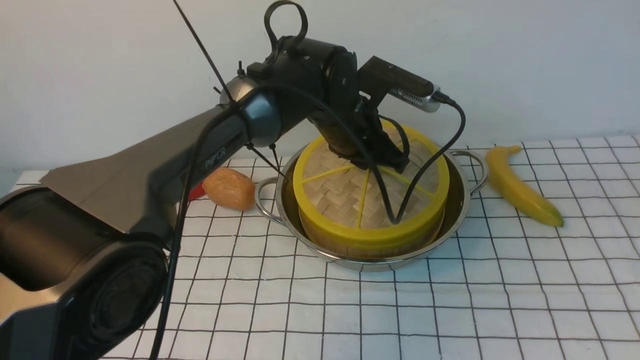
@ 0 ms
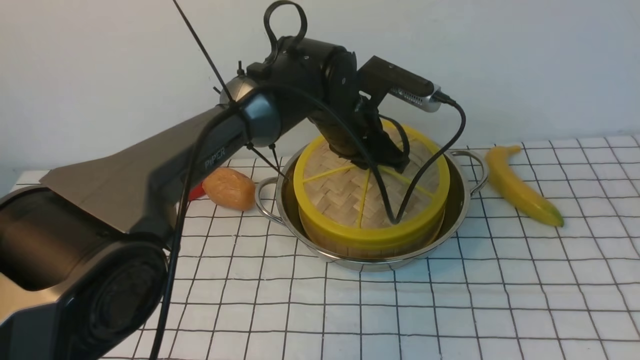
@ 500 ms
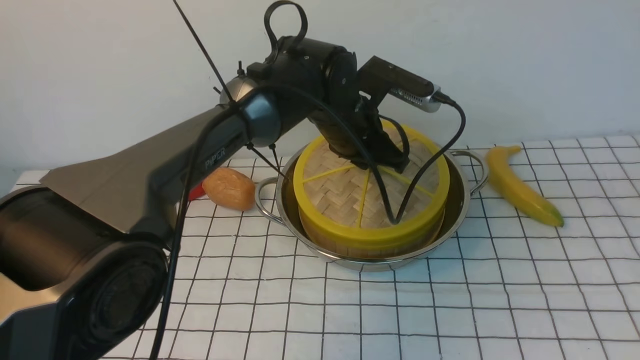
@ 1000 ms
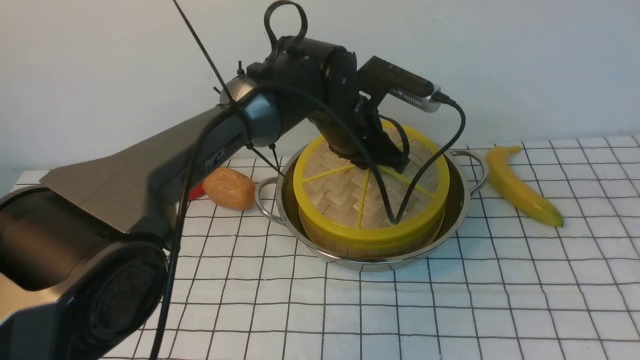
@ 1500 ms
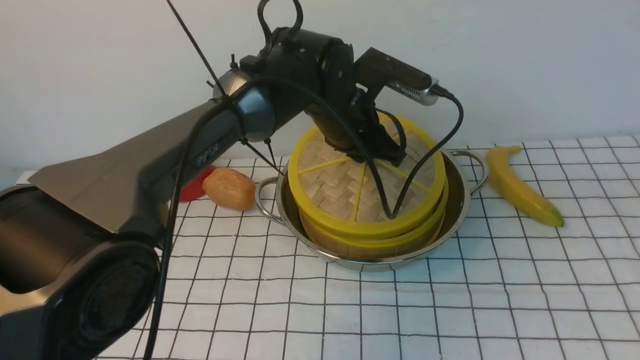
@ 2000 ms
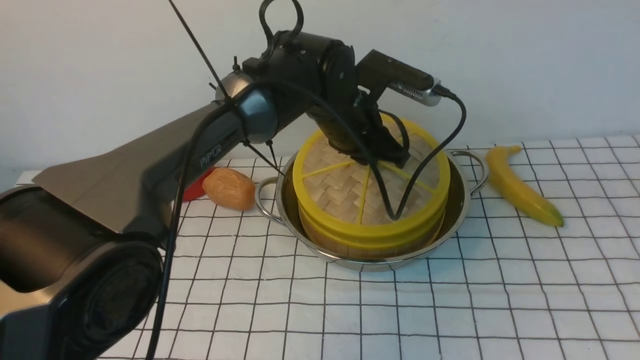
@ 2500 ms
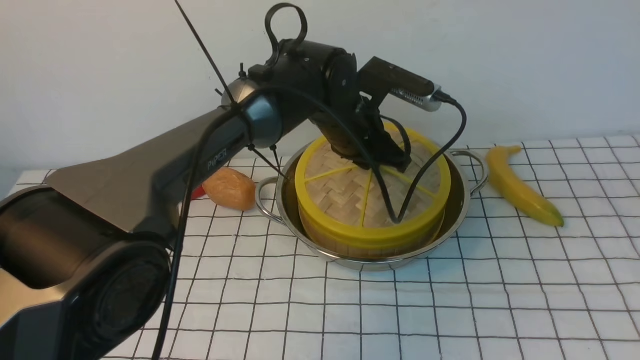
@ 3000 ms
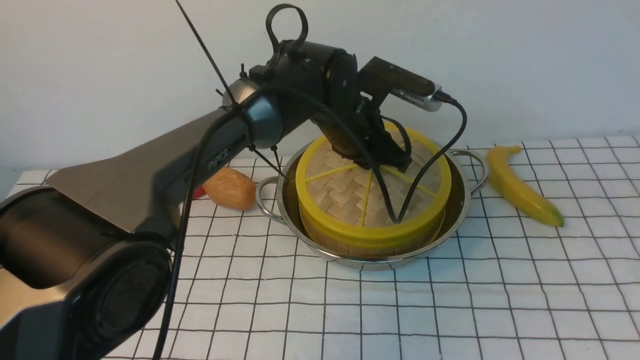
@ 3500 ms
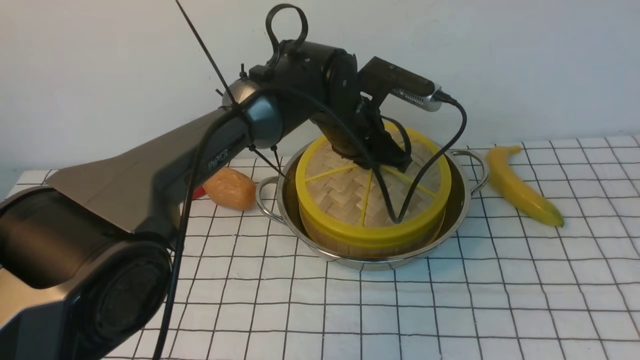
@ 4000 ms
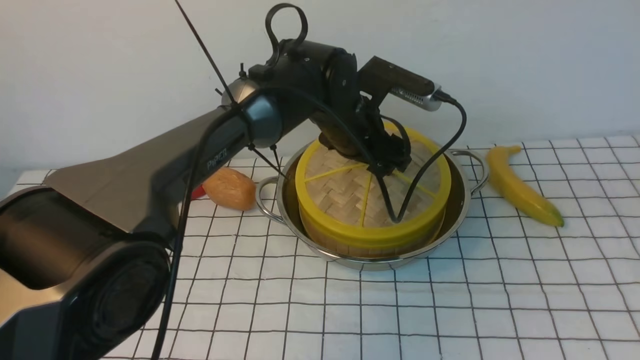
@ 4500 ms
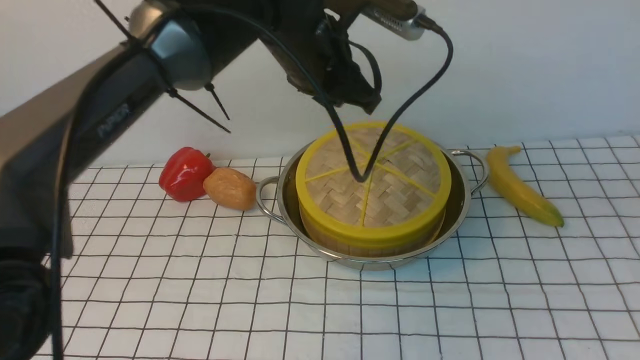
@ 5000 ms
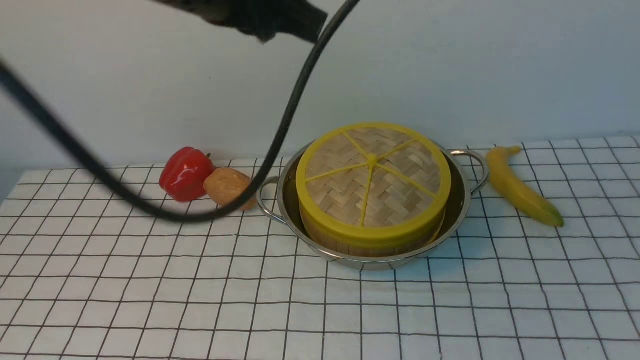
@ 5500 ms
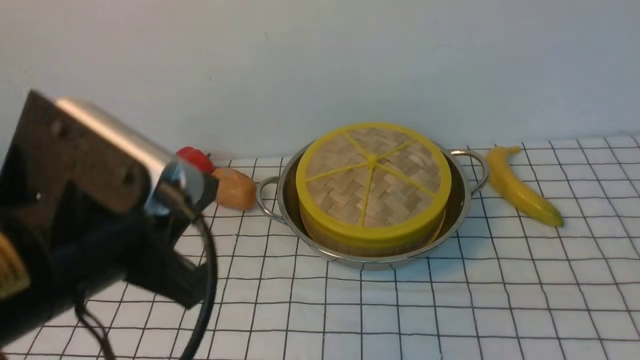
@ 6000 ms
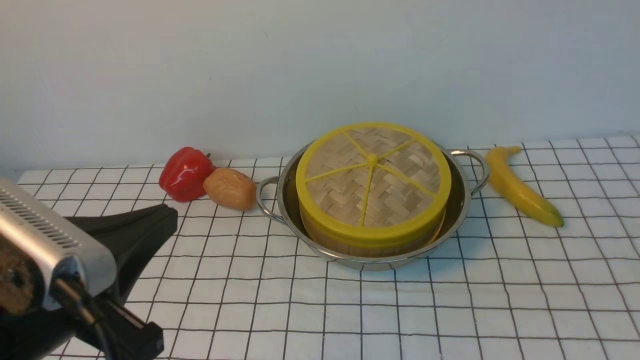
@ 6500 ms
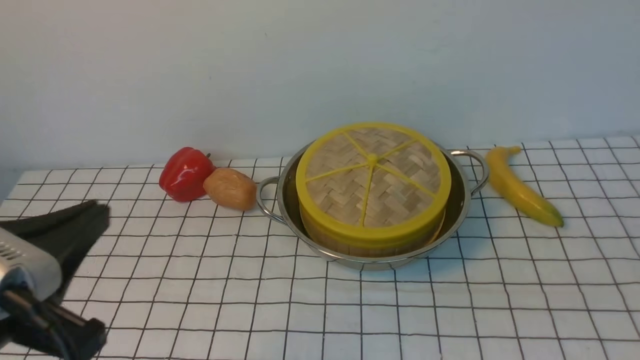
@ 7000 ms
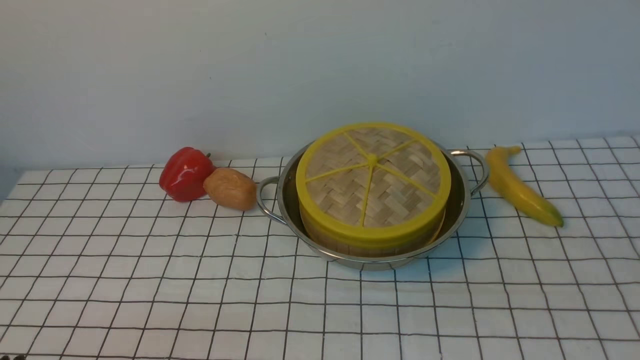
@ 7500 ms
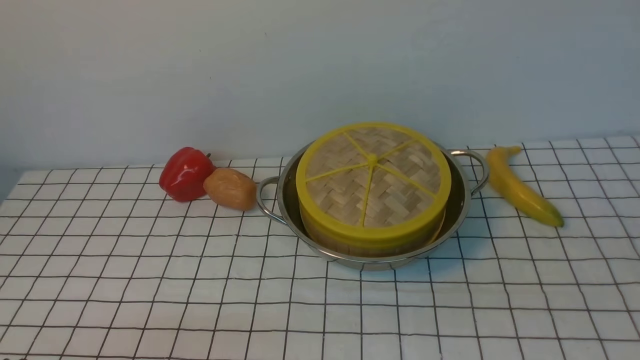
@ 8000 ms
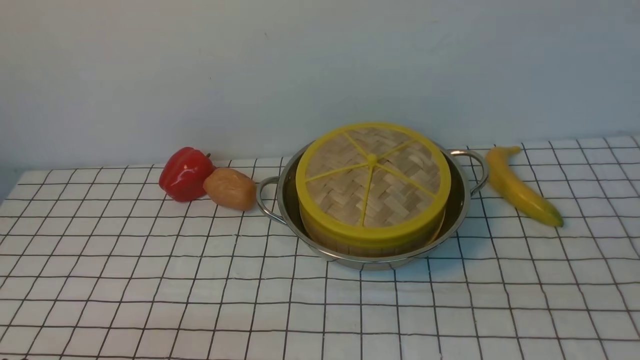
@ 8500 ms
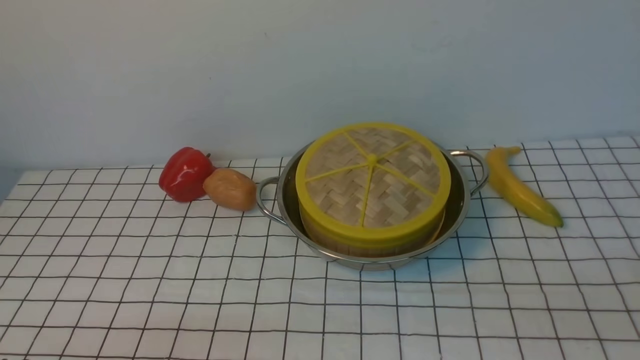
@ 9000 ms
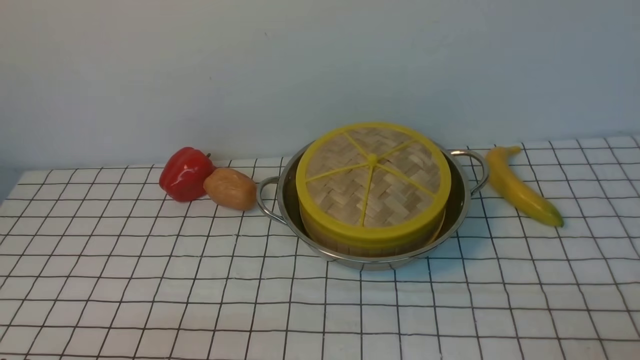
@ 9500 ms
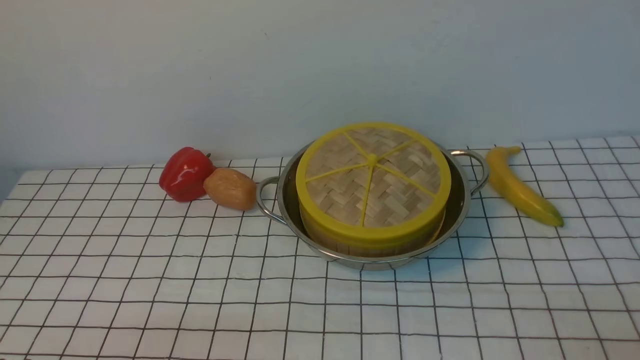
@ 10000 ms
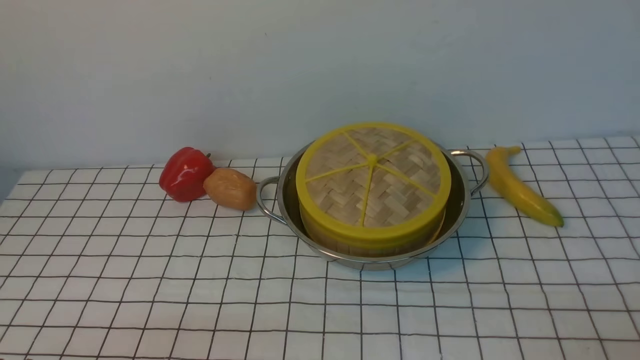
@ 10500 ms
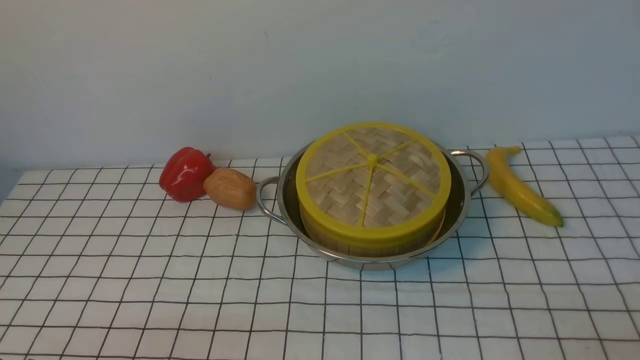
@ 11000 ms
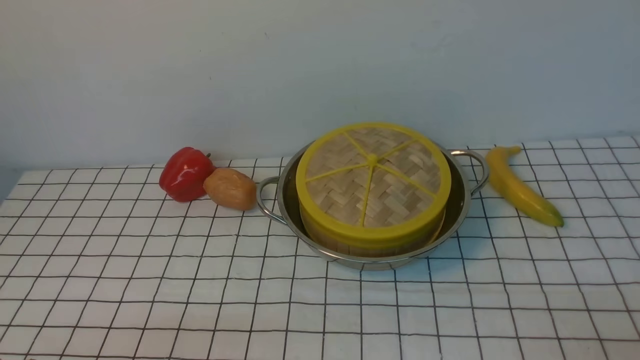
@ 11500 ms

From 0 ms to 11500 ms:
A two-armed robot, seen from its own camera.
Task of the whole recording: place the steamer in the pot on the white tablecloth, and put the lid on the steamer.
Step, from 0 ms to 4500 ms: use the left arm to place the steamer lid on the steamer.
From 0 ms to 4000 ms: The two grippers keep their place.
From 4000 ms to 6000 ms: The left gripper travels backward, to the left and upward by roughly 35 cm, and closes its fingers. Meanwhile the right gripper shifts some 10 cm downward and backward.
From 6000 ms to 7500 ms: The left gripper travels downward, backward and to the left by about 20 cm.
From 9500 ms to 11500 ms: Both grippers stay put.

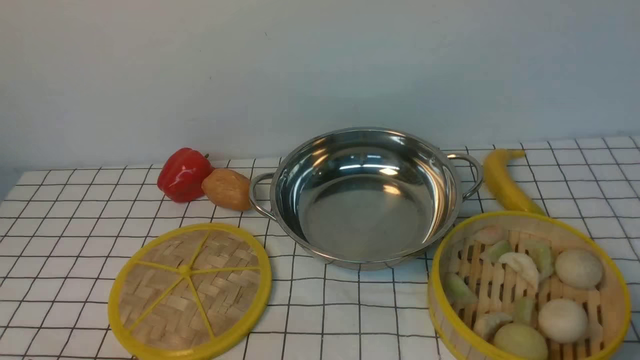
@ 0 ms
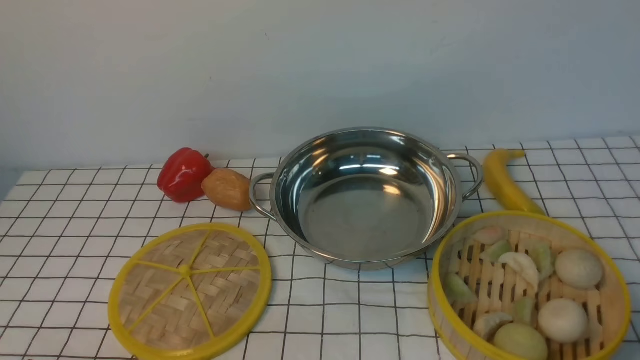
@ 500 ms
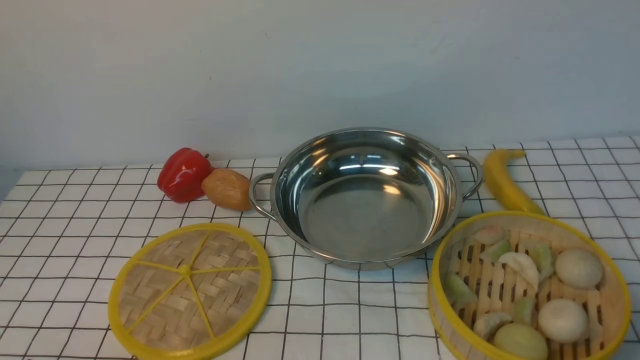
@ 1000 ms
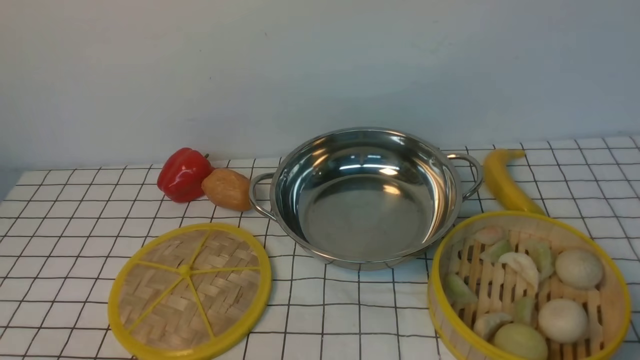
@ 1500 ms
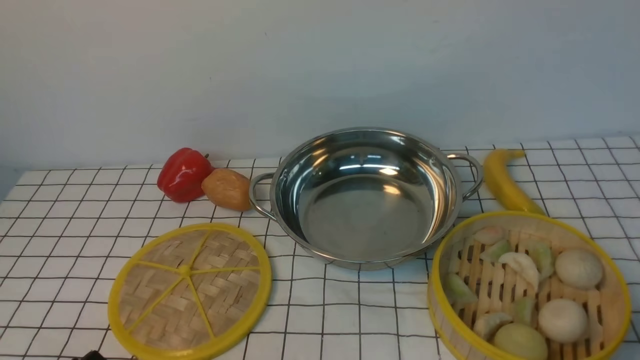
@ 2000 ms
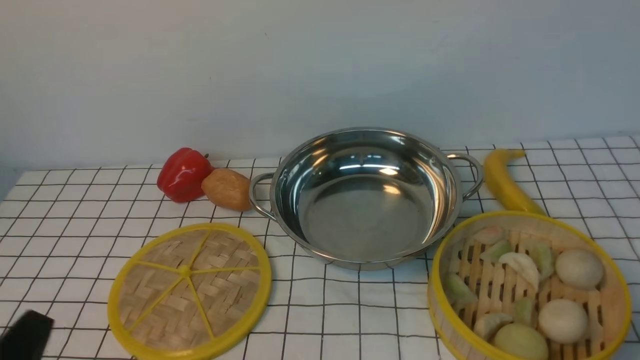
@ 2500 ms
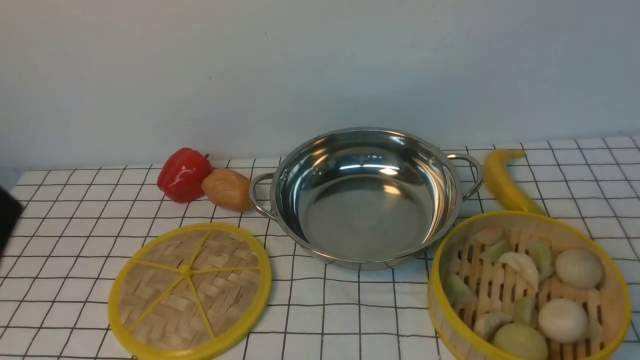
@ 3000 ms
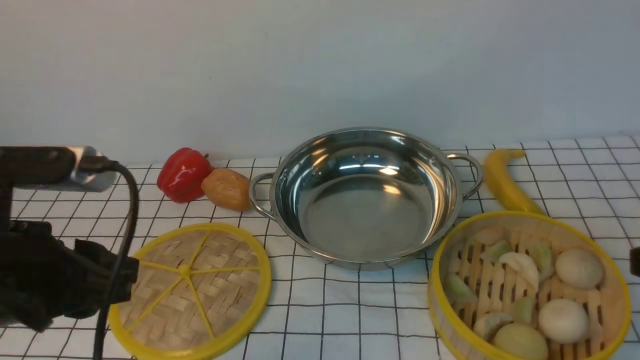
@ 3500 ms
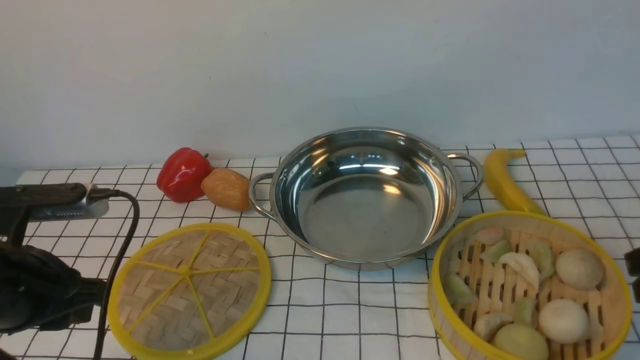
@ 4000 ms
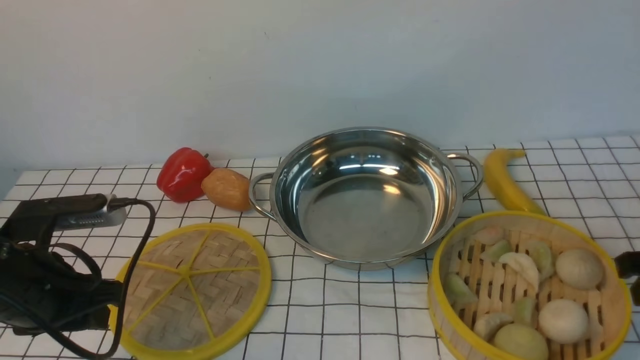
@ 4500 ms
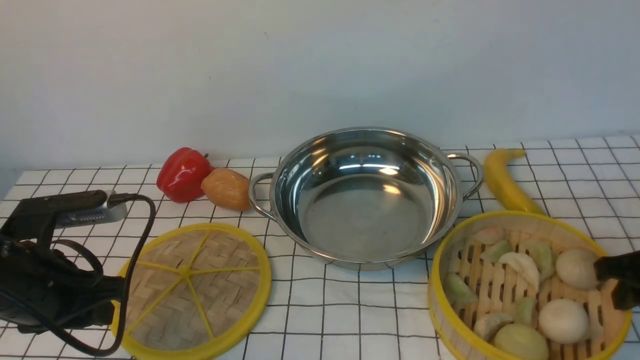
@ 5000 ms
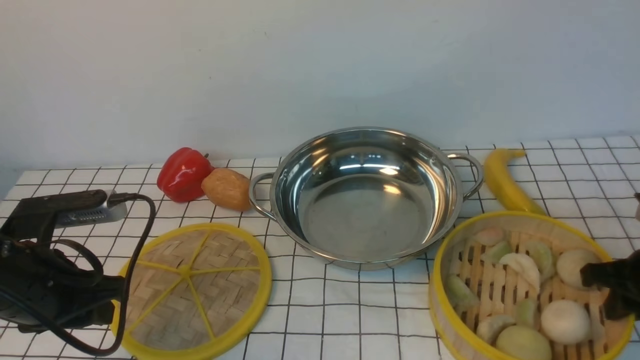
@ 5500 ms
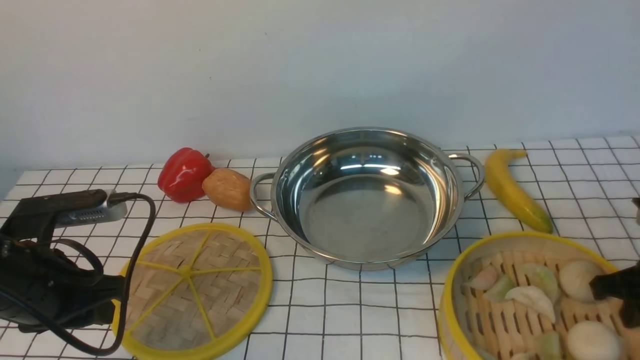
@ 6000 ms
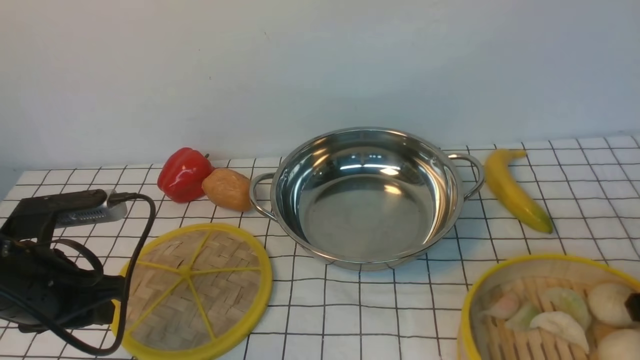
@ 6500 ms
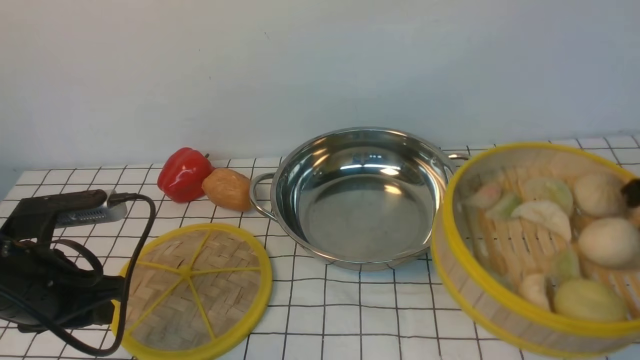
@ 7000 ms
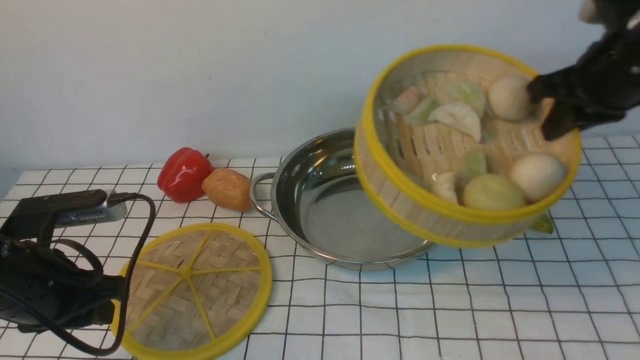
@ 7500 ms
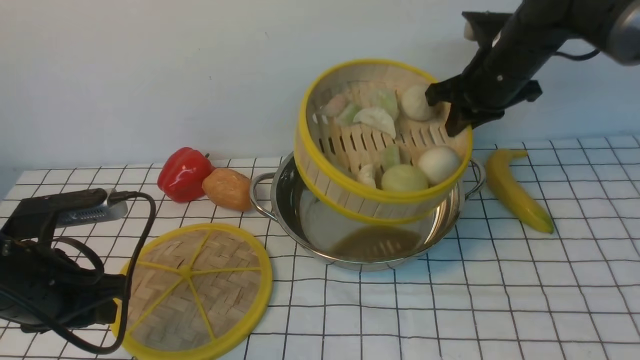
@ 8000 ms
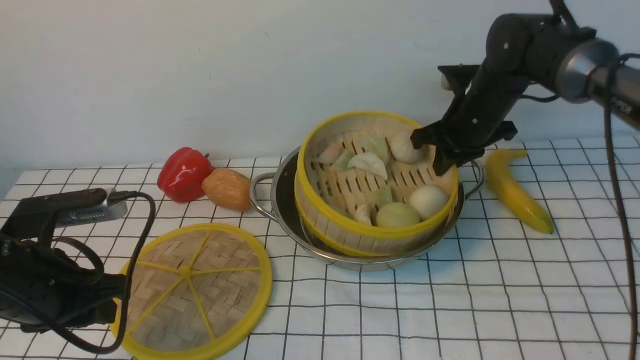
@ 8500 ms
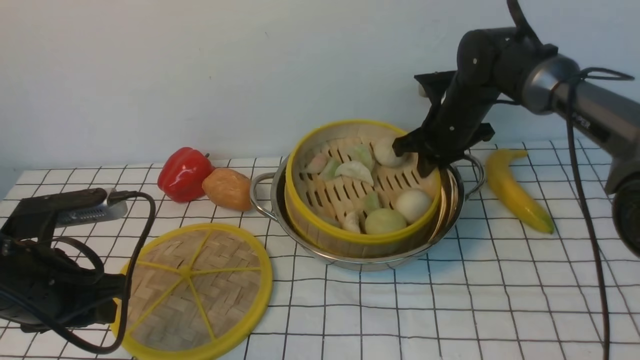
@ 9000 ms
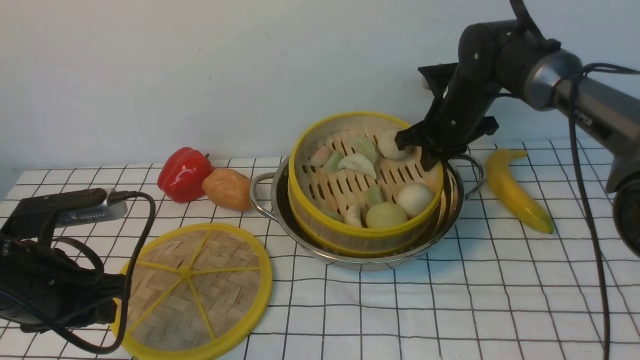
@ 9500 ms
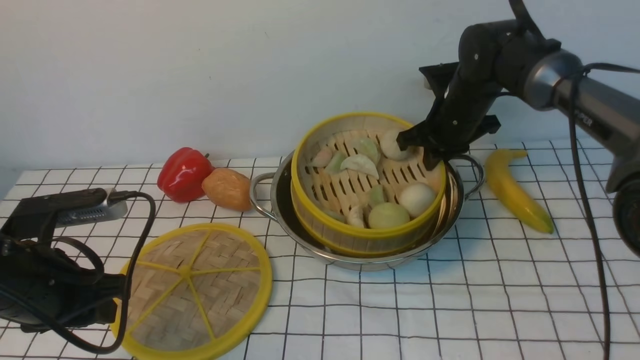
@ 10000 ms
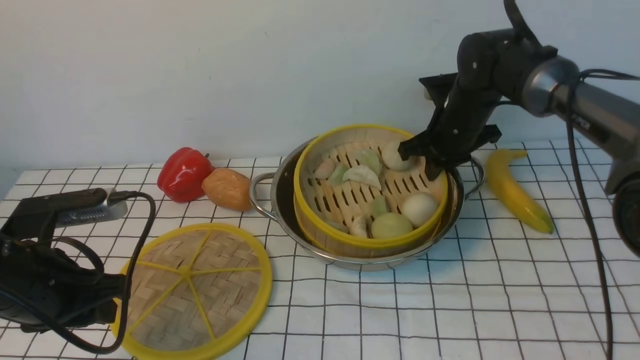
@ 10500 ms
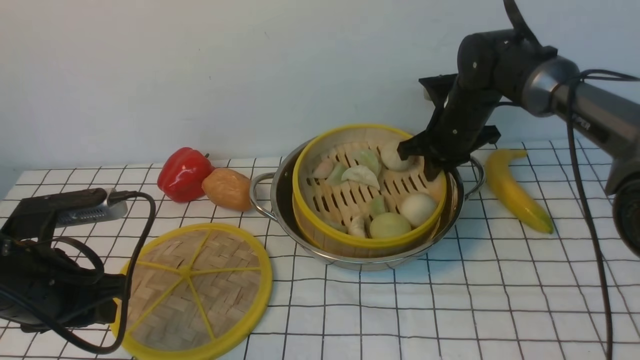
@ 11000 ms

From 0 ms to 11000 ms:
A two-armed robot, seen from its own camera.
Task of the whole recording: place the steamer in the pot on the white tablecloth, and put the lid on the steamer.
Step, from 0 ms to 6500 ms: use the right arm to lift the steamer closest to it.
From 2000 ms to 3500 ms: The left gripper shifts approximately 15 cm upward and forward.
From 3500 ms to 5500 ms: The right gripper moves downward and forward, about 20 cm, and closes its fingers. Meanwhile the left gripper moves downward and forward, roughly 10 cm.
From 5500 ms to 7500 ms: The right gripper travels upward, forward and to the left by some 20 cm.
From 7500 ms to 9000 ms: The right gripper travels downward, forward and to the left by about 20 cm.
From 9000 ms to 11000 ms: Neither gripper changes place.
